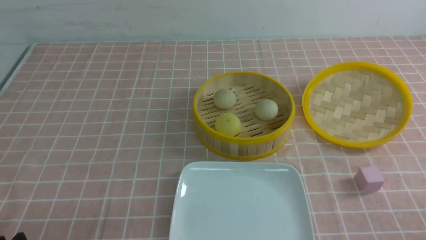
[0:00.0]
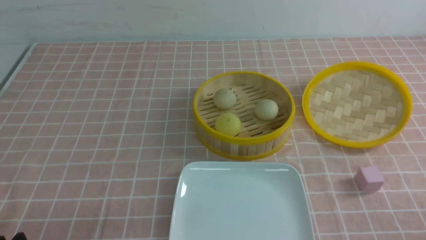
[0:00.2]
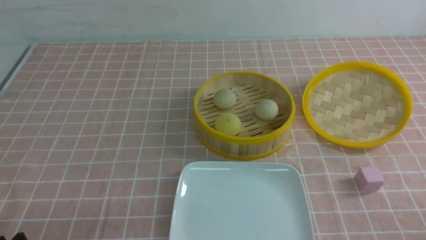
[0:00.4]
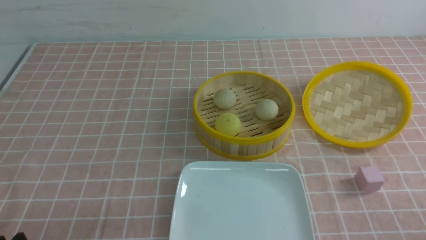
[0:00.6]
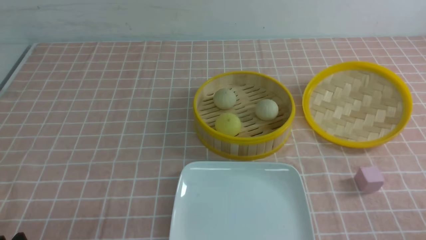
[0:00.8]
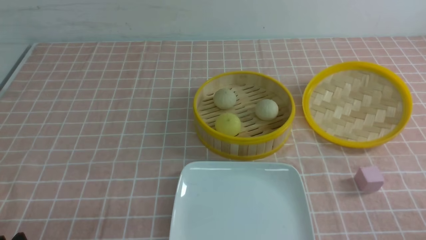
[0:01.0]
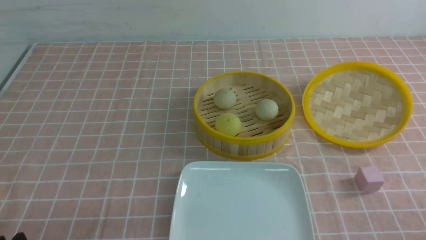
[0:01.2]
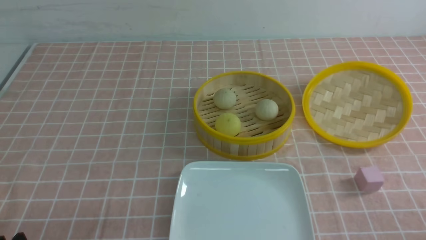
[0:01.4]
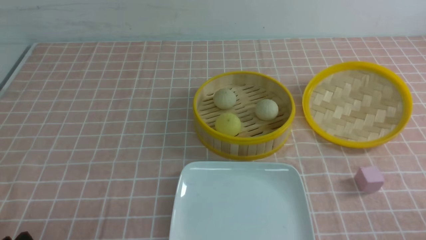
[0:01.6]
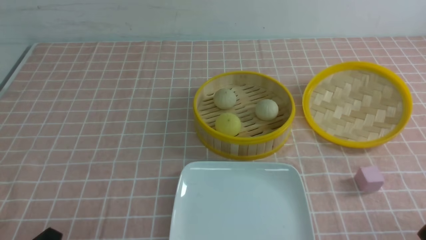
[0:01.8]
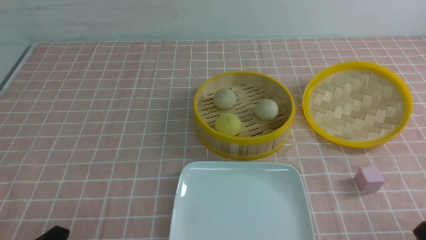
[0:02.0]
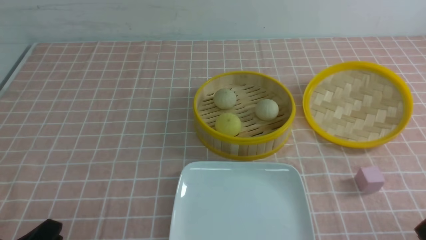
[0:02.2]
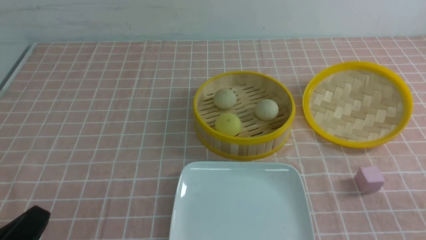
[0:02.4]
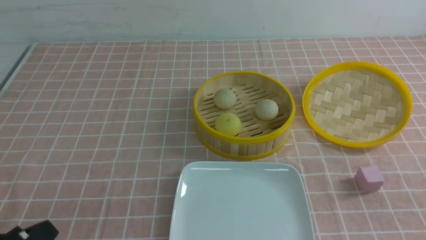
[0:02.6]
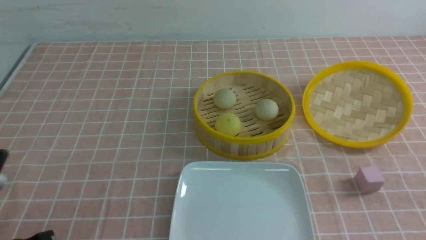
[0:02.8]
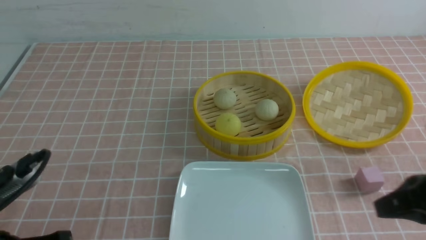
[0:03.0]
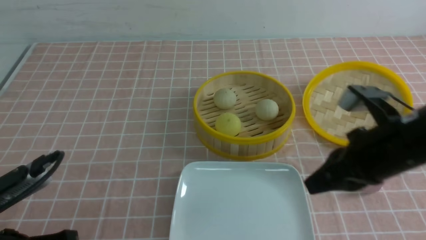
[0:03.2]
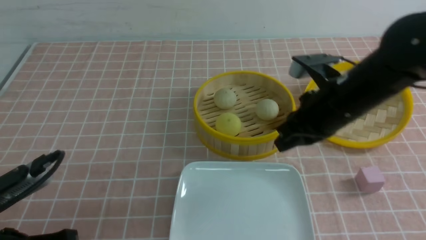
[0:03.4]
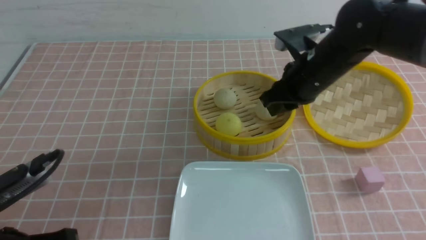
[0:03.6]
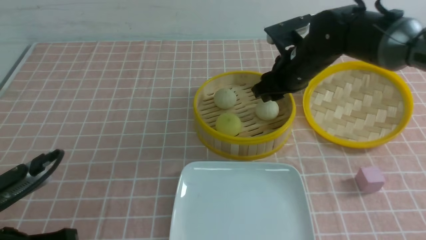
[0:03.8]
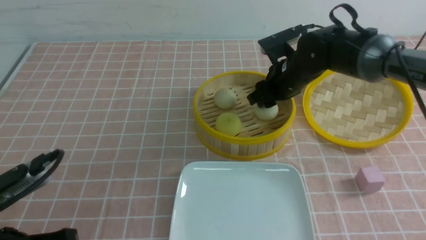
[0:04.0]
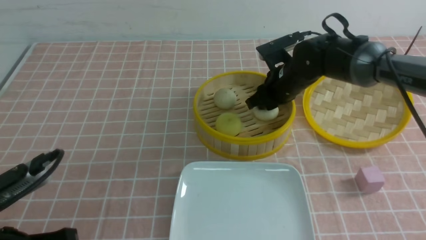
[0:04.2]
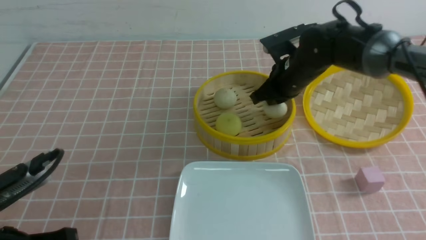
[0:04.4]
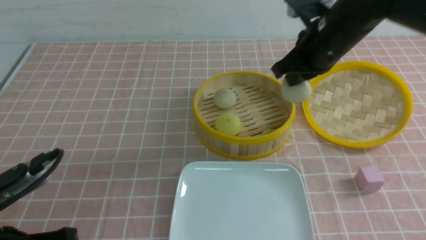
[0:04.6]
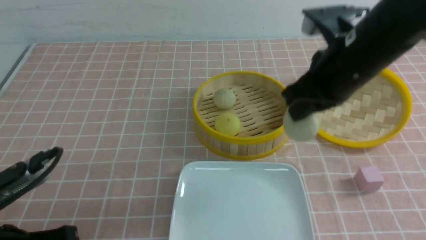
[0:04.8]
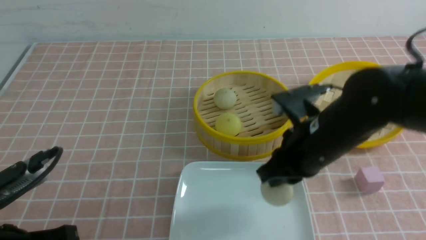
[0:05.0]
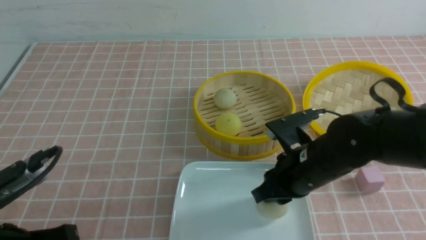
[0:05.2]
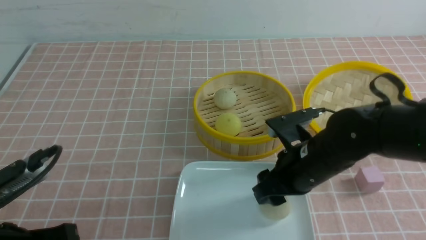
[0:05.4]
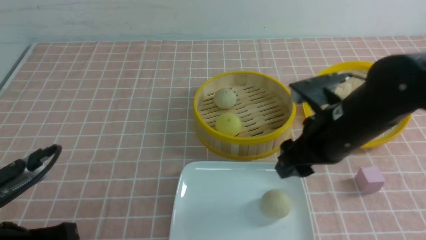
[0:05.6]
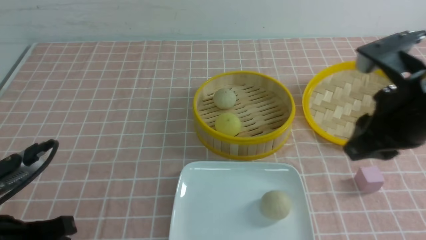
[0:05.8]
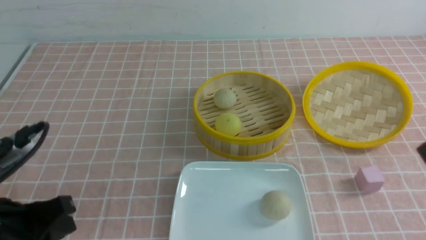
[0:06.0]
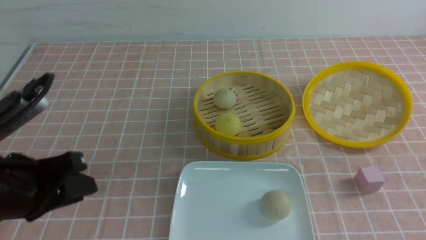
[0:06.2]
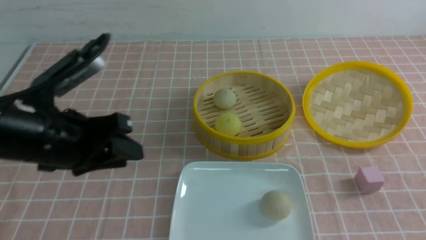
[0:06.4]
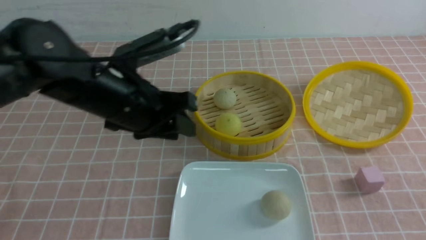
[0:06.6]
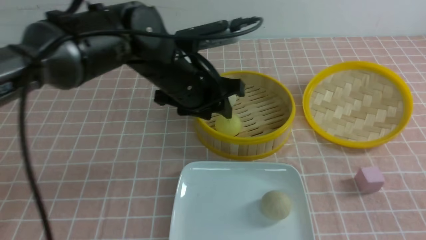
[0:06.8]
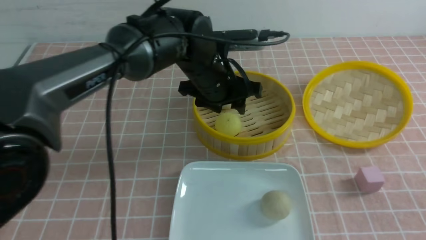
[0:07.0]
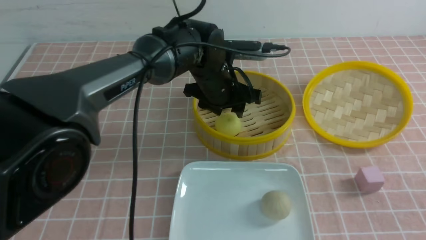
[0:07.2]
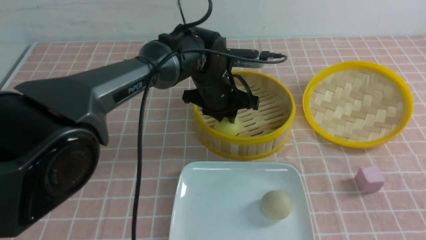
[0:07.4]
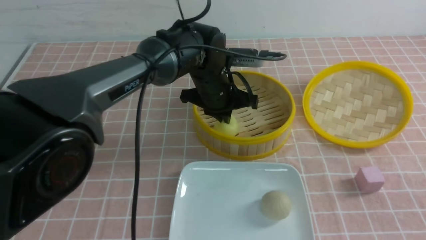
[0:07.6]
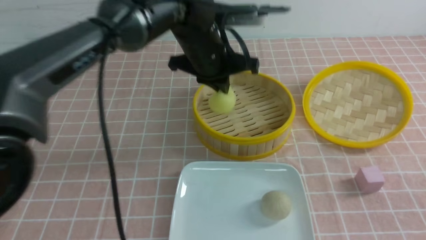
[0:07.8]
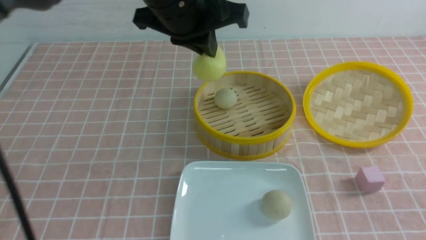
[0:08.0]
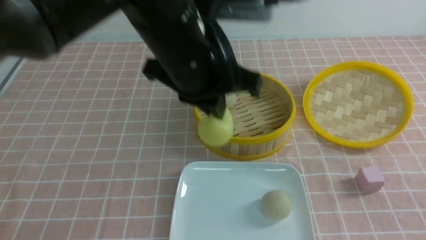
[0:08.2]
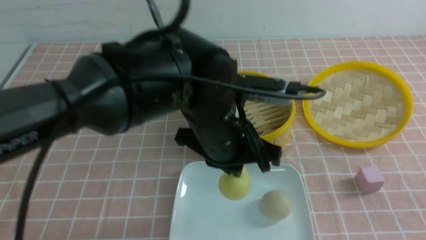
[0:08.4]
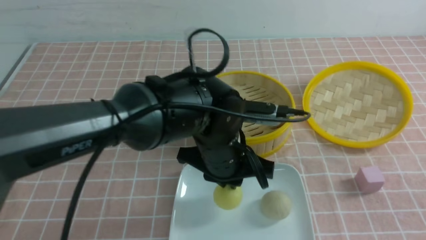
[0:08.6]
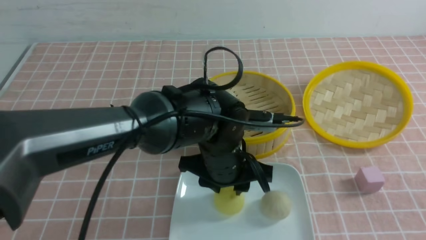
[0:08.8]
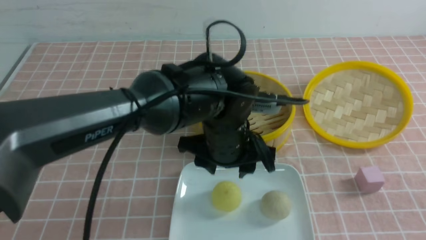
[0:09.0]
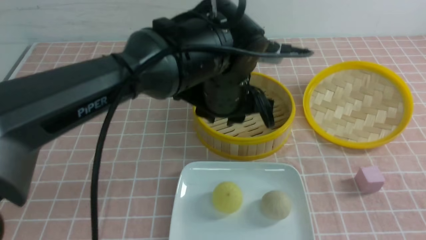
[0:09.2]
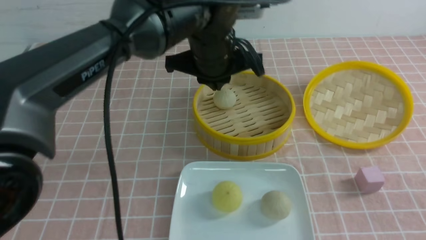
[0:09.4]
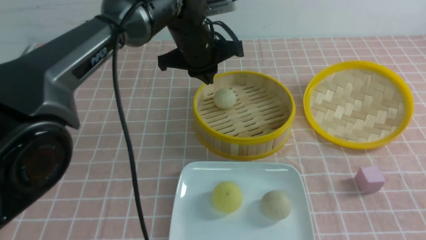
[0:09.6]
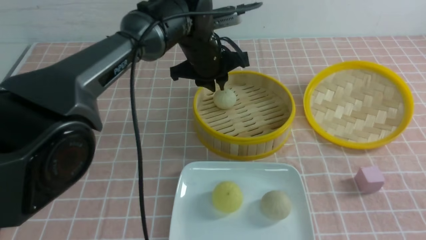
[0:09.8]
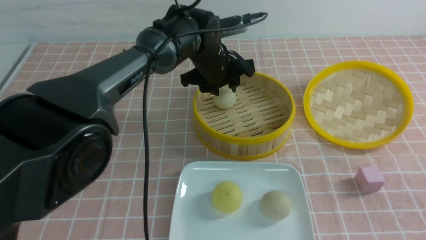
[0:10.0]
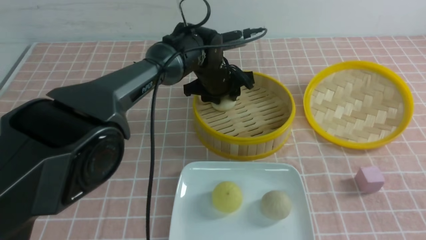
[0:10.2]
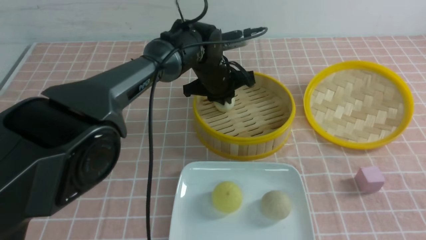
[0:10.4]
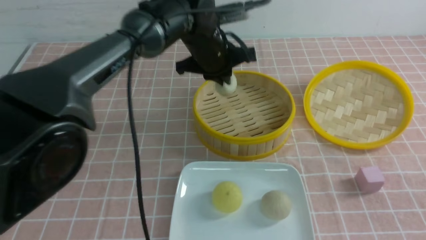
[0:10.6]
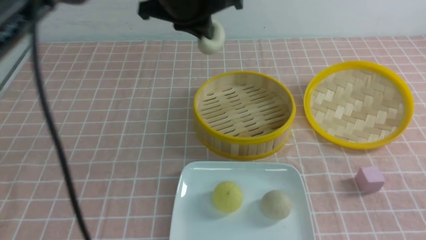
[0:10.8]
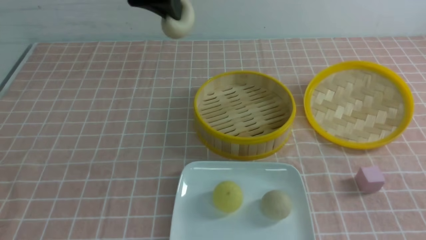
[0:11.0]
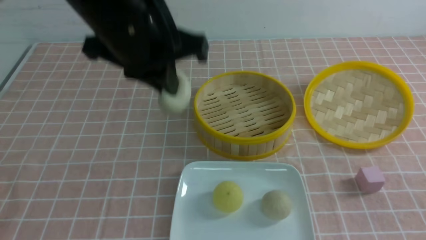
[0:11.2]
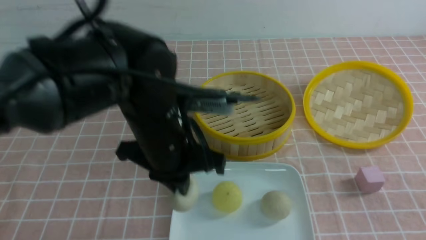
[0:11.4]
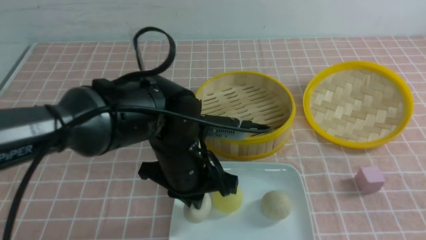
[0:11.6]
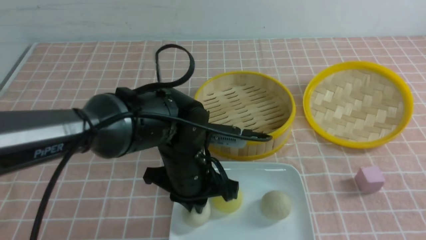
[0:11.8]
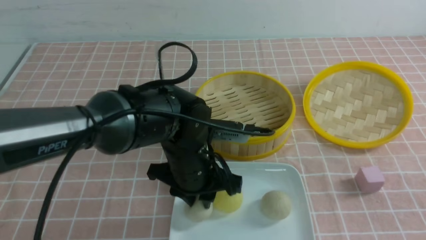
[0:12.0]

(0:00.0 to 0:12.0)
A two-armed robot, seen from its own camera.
Step, 0:00.0 - 0:04.2: use the right arm to grab the steamed stuffed bun that is closest to it.
Step, 0:04.6 - 0:05.4: use the right arm to put the steamed stuffed bun into the plate.
Step, 0:05.6 - 0:07.4: use the left arm to grab the steamed stuffed bun that is closest to it.
Step, 0:07.6 - 0:08.8: use the left arm to put the steamed stuffed bun into the plate.
Step, 0:09.0 - 0:10.2: use the left arm to grab the steamed stuffed bun that is closest to it.
0:01.6 - 0:03.0: The left gripper heads upward, covering some 5 cm, and closes; the right gripper goes approximately 20 cm forward, upward and to the left, and closes its fingers.
0:03.0 - 0:04.4: The right gripper travels forward and to the left by some 25 cm, and opens, then closes once more.
0:04.4 - 0:06.0: The right gripper is displaced backward and upward by roughly 30 cm, and opens, then closes once more.
0:06.0 - 0:07.6: The left gripper travels forward and to the right by roughly 35 cm, and opens, then closes again, while the right gripper shifts some 10 cm backward and downward.
0:07.6 - 0:09.0: The left gripper travels backward by about 10 cm, travels upward and back again, approximately 10 cm each way, and opens up.
0:09.0 - 0:10.4: The left gripper heads forward, covering approximately 15 cm, and closes up.
0:10.4 - 0:12.0: The left gripper travels backward by about 20 cm, moves approximately 20 cm upward and comes back, and opens up.

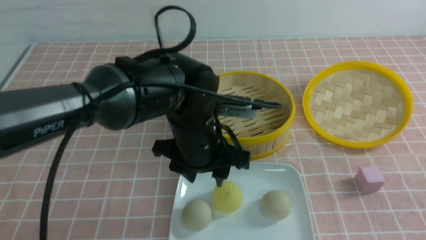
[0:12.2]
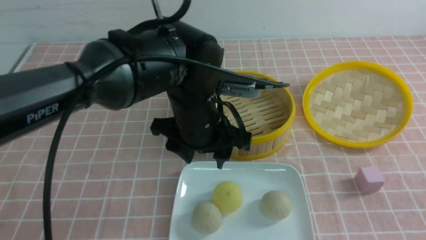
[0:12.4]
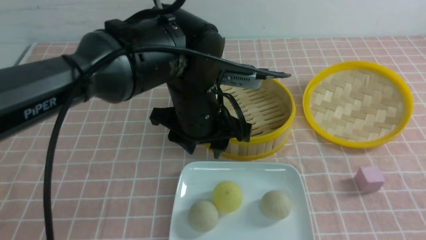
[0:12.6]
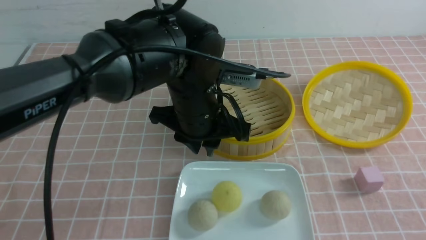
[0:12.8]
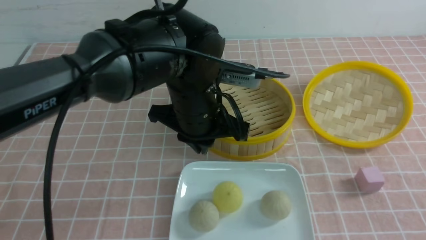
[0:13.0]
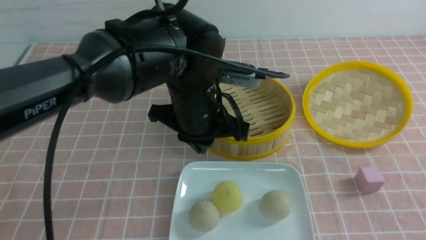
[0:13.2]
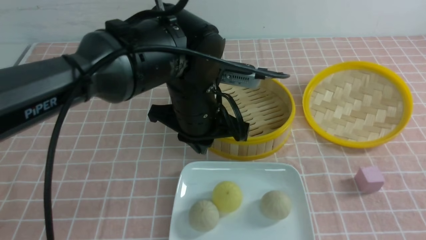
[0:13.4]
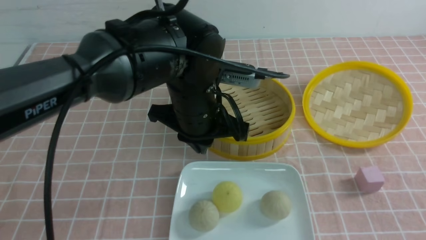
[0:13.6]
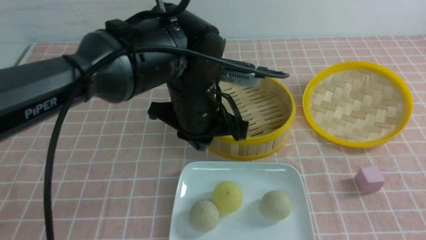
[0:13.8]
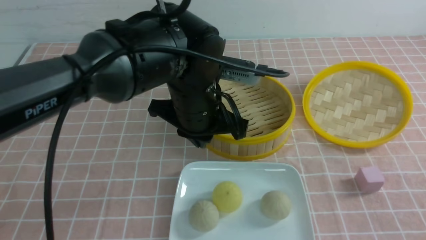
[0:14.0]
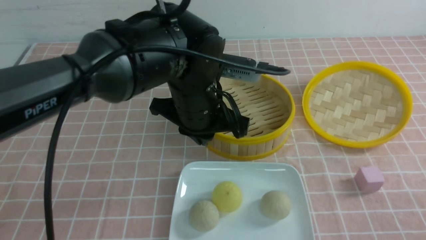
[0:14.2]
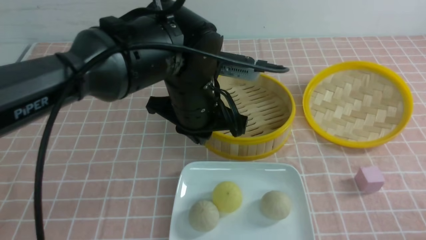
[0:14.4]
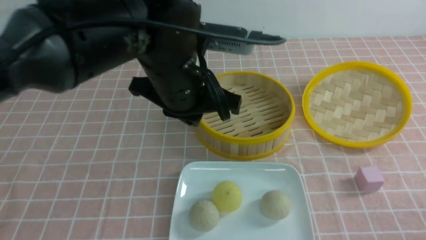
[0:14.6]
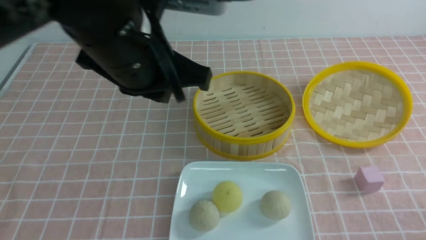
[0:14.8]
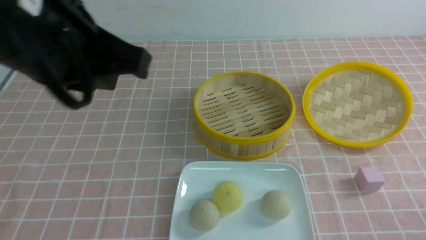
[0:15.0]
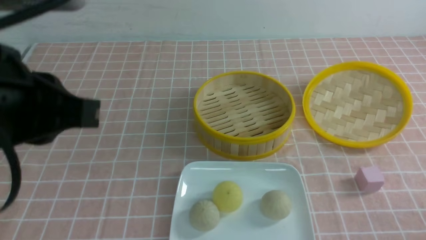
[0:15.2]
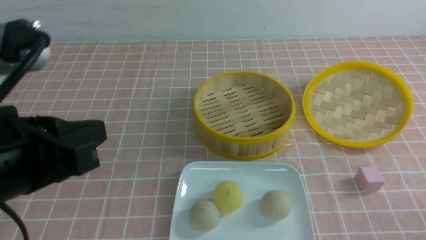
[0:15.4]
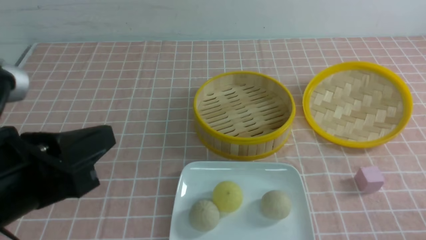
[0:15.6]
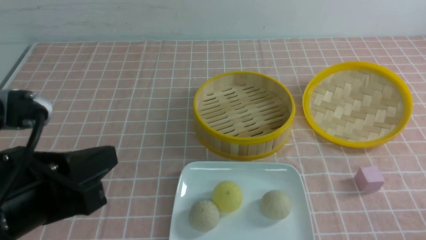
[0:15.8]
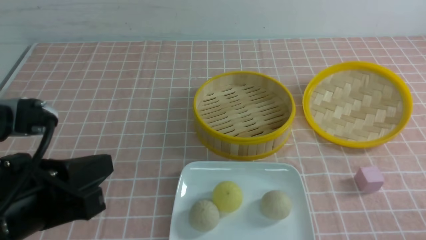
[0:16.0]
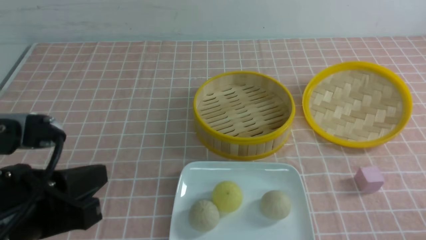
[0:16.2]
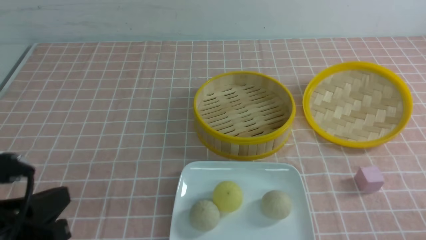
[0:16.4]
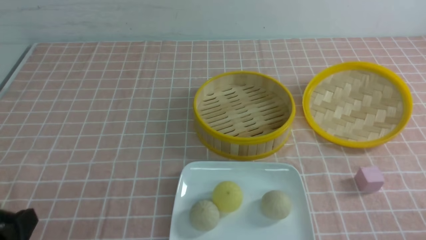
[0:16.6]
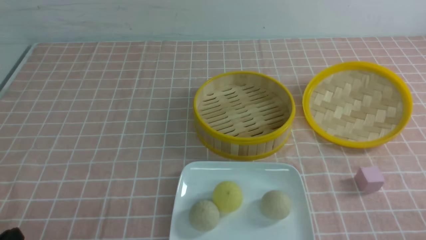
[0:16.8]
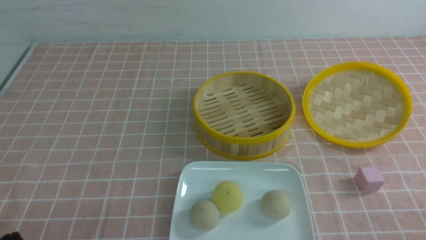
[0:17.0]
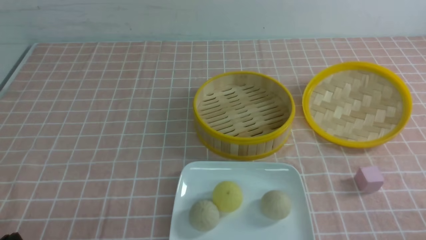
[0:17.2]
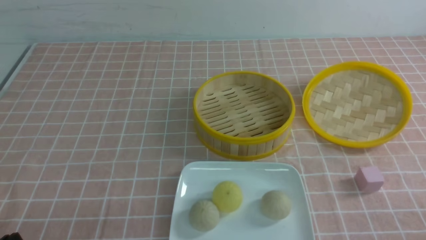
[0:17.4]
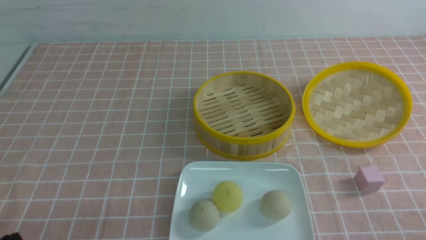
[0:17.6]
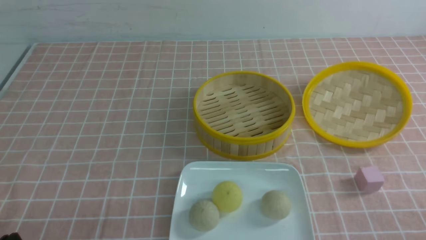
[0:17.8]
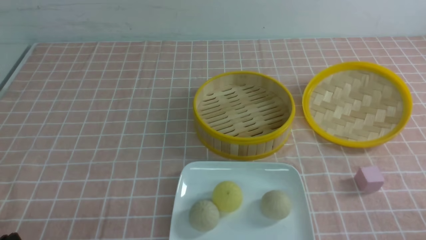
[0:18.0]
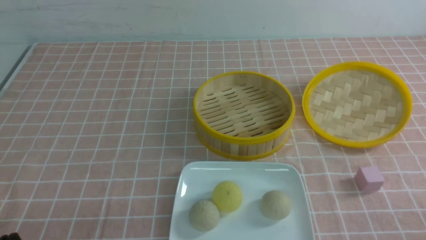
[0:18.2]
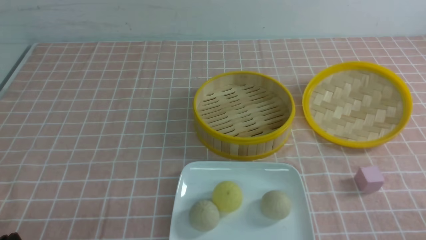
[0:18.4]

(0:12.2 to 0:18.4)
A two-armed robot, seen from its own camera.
0:12.2 - 0:13.8: The left gripper closes up. Meanwhile the right gripper closes its fingers.
0:13.8 - 0:15.4: The right gripper goes some 10 cm downward. Meanwhile the left gripper goes about 25 cm backward, to the left and upward.
0:15.4 - 0:16.8: The left gripper travels downward and to the left by roughly 20 cm.
